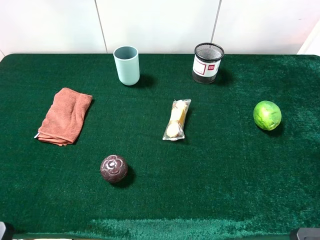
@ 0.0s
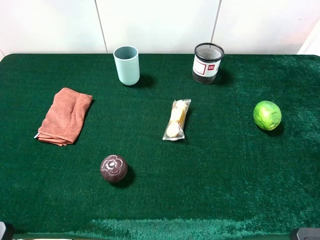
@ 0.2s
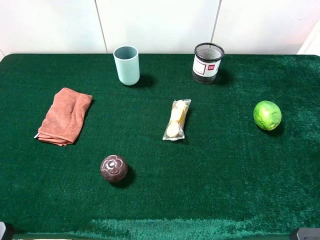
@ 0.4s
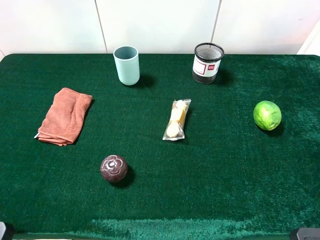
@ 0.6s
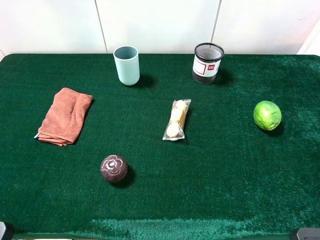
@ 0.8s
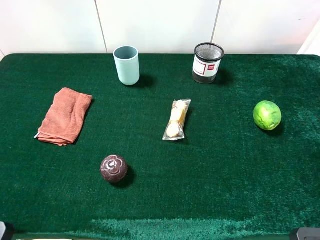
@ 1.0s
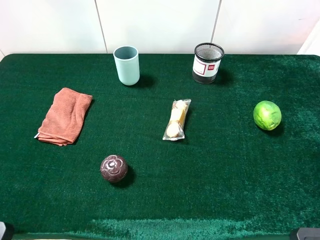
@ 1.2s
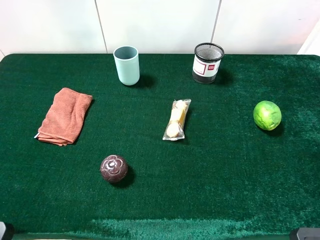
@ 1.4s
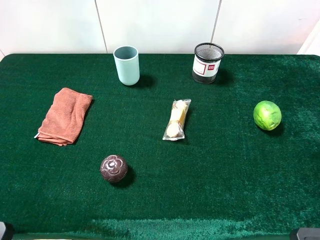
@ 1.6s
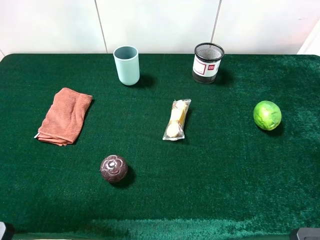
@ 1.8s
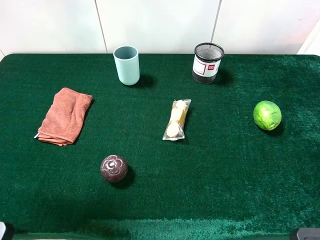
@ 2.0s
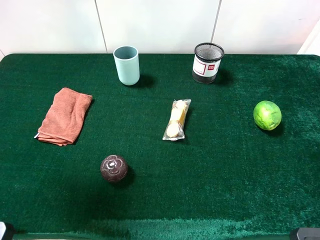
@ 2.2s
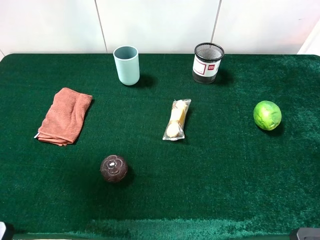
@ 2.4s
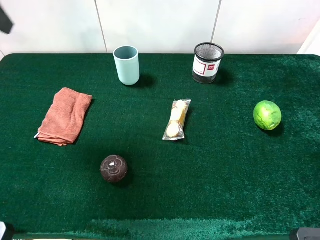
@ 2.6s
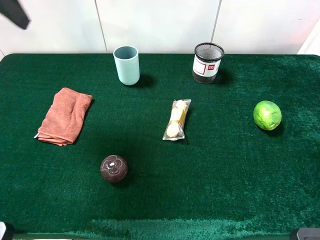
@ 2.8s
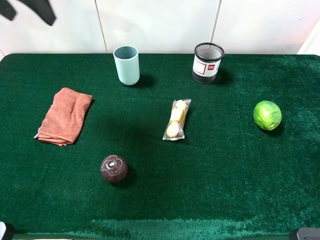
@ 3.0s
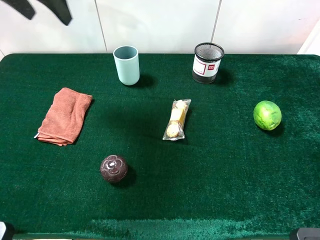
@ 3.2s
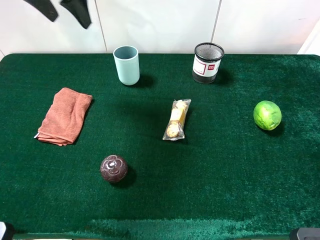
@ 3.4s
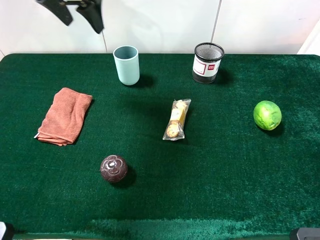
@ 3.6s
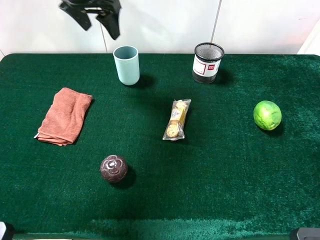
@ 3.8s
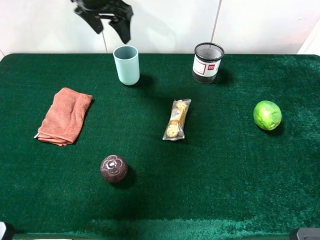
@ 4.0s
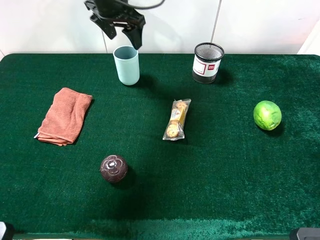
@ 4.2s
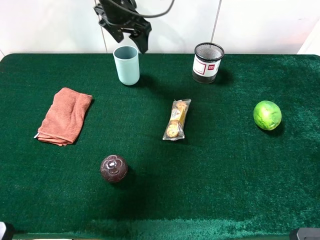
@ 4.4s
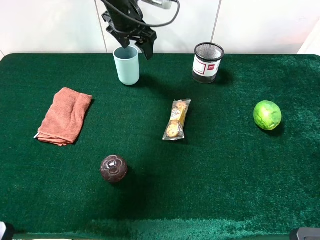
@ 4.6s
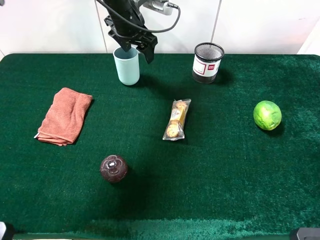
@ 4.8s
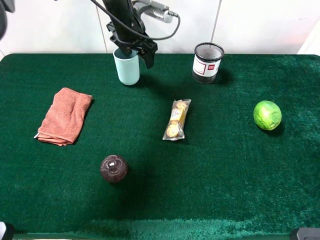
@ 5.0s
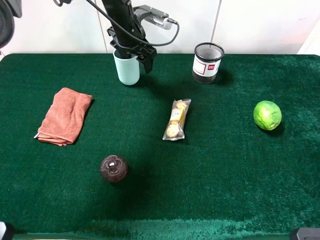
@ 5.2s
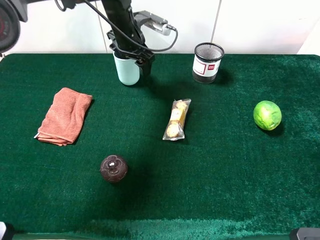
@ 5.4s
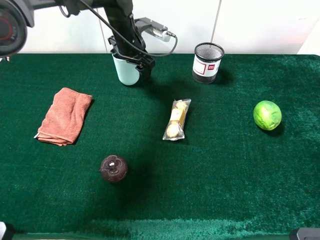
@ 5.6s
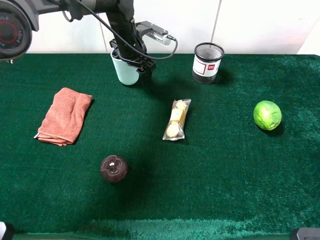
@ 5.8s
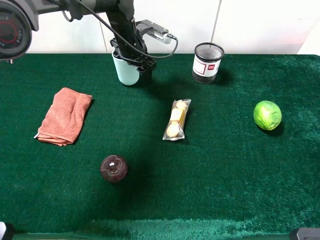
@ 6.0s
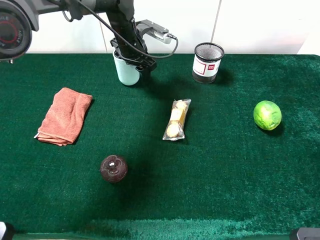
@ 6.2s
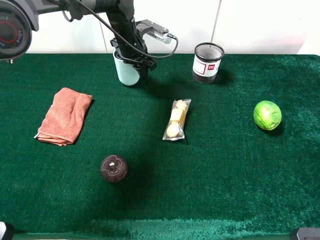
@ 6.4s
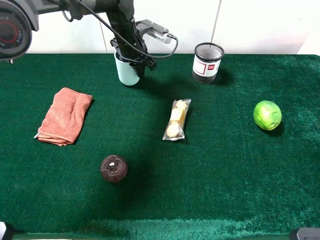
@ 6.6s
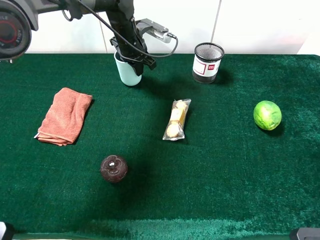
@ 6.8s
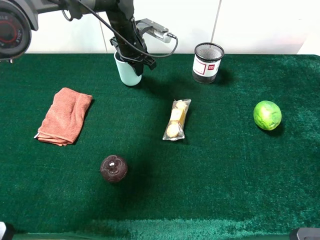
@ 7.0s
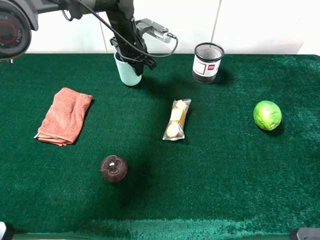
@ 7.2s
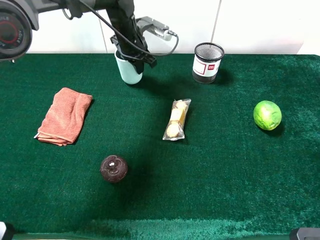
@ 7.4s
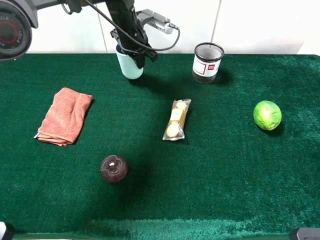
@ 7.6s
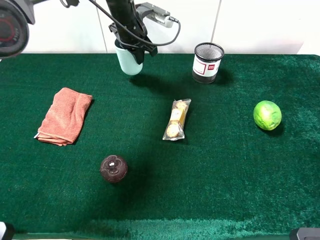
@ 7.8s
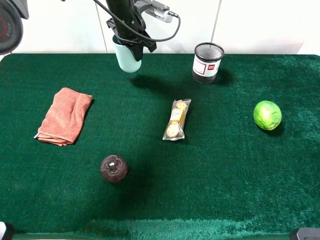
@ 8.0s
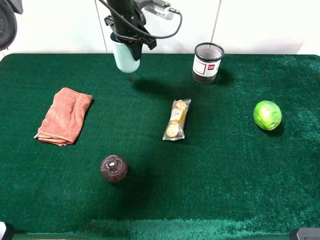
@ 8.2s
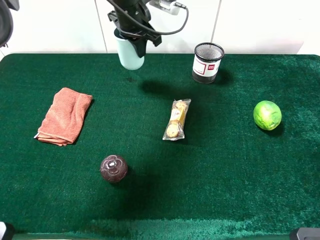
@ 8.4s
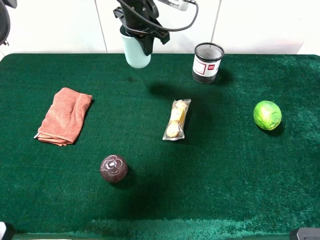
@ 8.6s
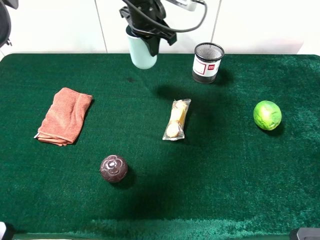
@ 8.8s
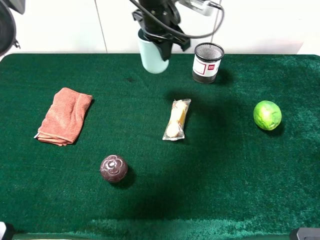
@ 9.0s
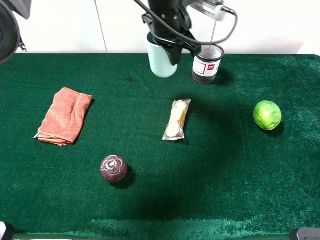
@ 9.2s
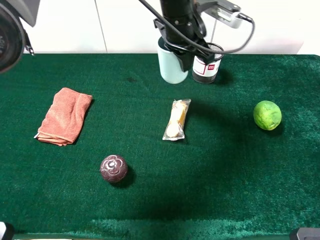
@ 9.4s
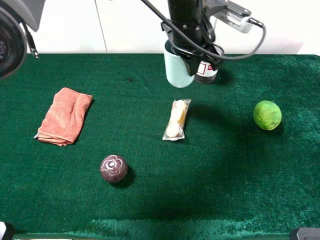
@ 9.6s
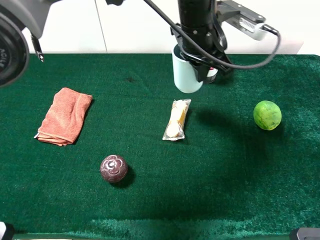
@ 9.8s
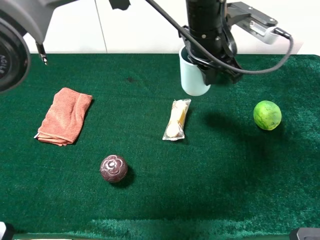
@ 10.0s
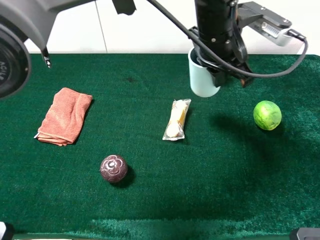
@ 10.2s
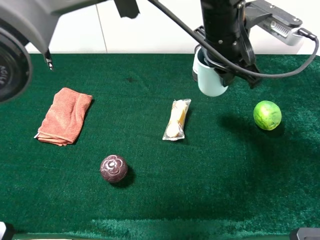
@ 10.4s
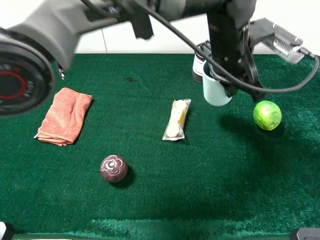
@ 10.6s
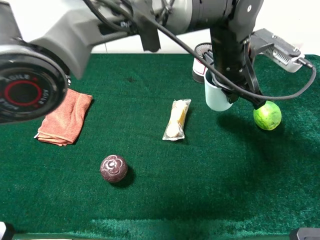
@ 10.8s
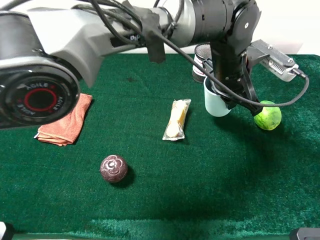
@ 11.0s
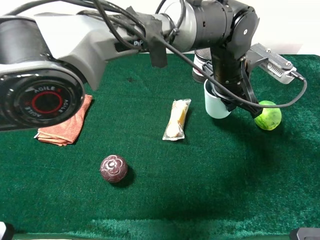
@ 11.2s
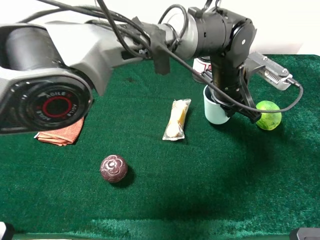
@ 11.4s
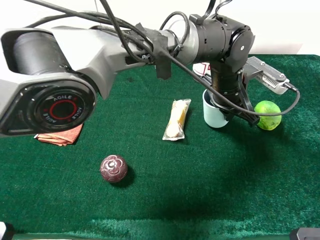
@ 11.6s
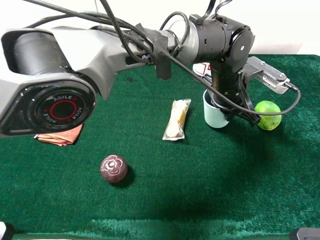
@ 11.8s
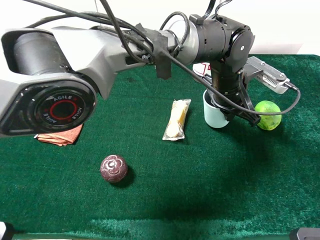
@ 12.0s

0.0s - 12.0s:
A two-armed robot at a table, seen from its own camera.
Task of the whole recording: the gripper move the object.
1.6s - 3.0s: The left gripper travels forward by some 30 cm.
3.0s - 4.4s: The left gripper goes some 20 cm to the right, downward and forward.
4.4s - 6.0s: The left gripper heads downward, covering some 10 cm.
6.0s - 7.6s: The left gripper closes its fingers.
7.6s - 9.0s: The left gripper travels to the right, backward and upward by roughly 15 cm.
9.0s - 10.4s: The left gripper travels to the right and backward by some 15 cm.
10.4s - 12.0s: The left gripper travels downward by approximately 10 cm.

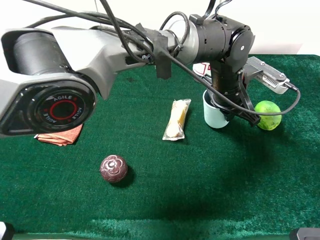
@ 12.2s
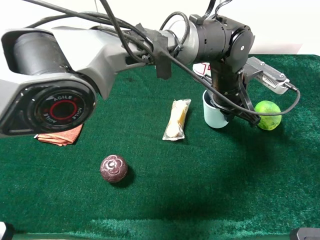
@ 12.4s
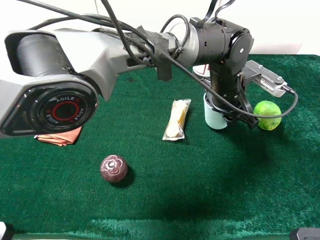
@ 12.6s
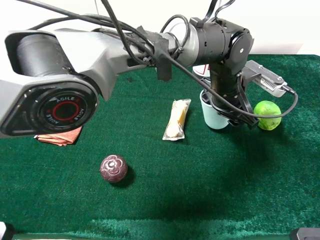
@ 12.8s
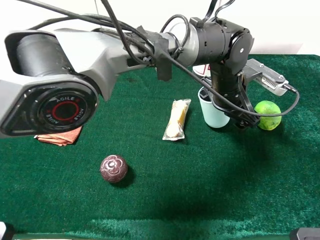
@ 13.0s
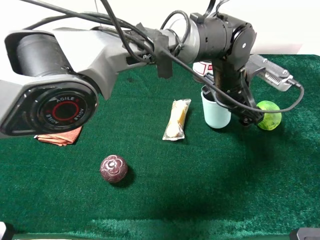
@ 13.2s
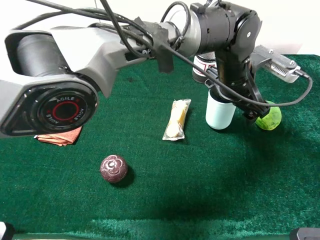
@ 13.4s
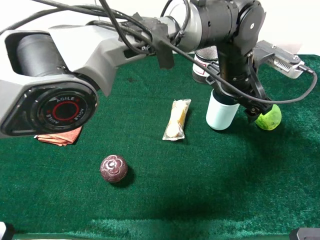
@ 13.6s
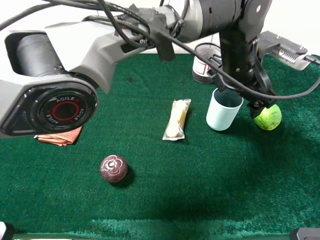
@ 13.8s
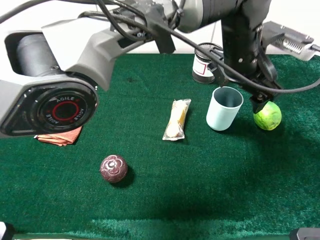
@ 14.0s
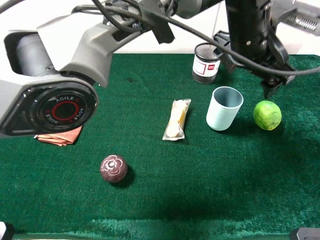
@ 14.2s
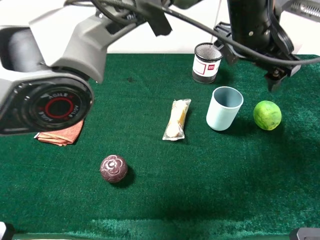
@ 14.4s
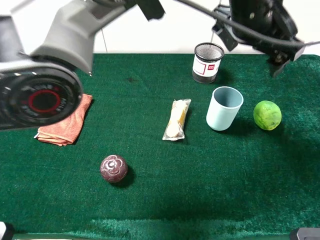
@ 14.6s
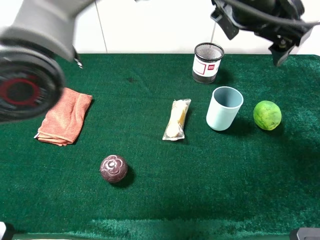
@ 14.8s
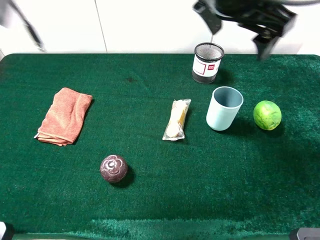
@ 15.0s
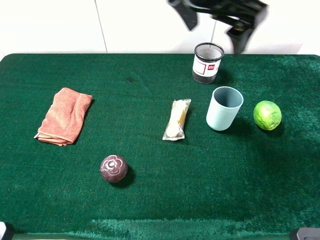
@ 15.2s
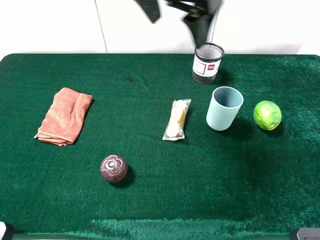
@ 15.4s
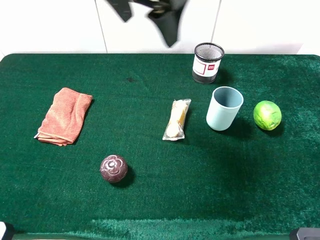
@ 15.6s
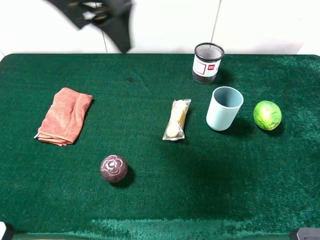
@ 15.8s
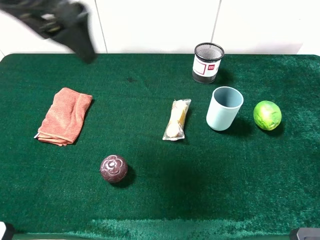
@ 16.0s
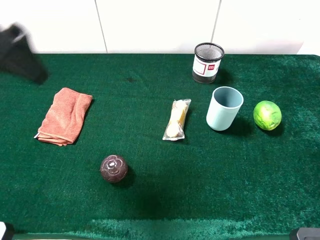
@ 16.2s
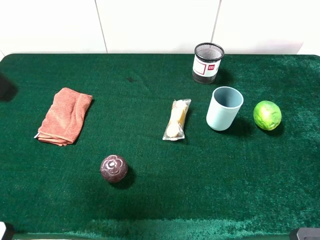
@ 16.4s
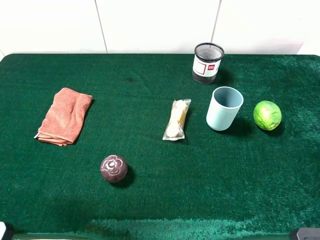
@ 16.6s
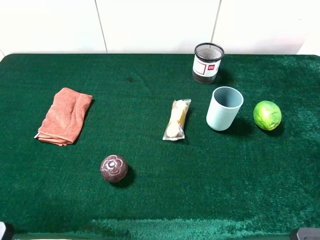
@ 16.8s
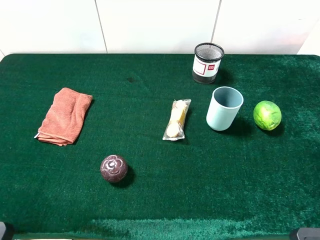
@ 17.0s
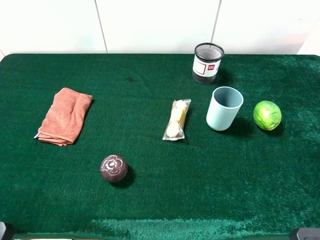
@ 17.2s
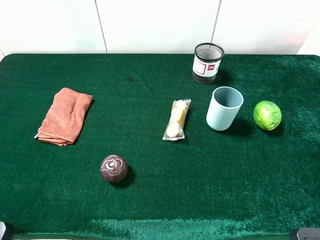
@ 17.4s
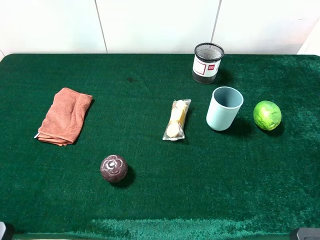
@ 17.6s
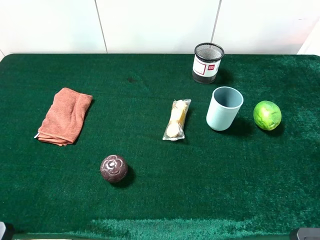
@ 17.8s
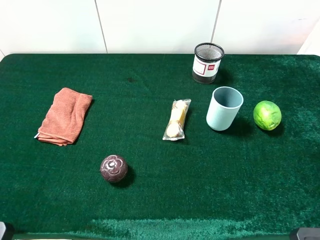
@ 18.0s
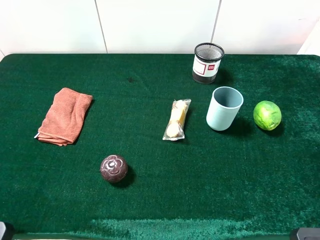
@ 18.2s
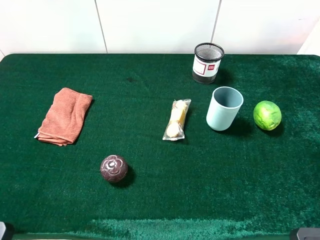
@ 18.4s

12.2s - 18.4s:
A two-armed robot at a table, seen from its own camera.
Task of the whole recording: the gripper move the object.
12.2s - 13.8s: The left gripper shifts approximately 5 cm upward, and opens up.
13.8s - 15.4s: The left gripper travels upward and to the left by roughly 20 cm.
15.4s - 16.8s: The left gripper is displaced to the left and backward by approximately 35 cm.
